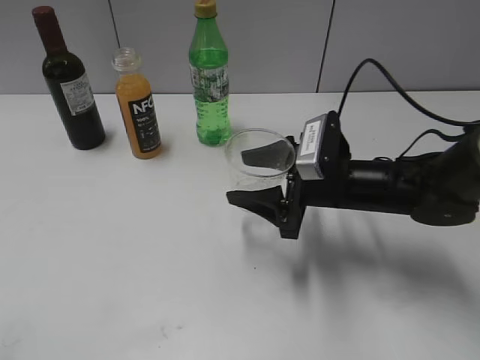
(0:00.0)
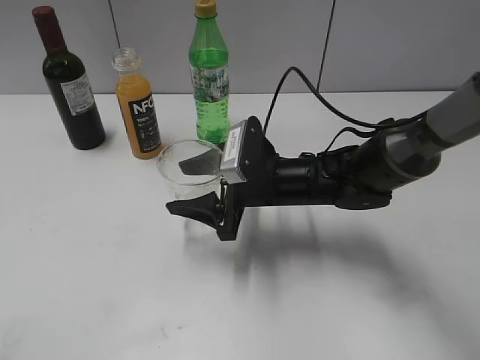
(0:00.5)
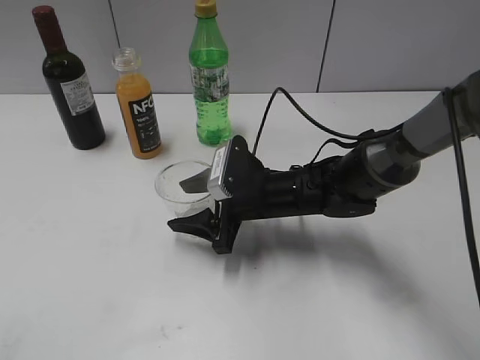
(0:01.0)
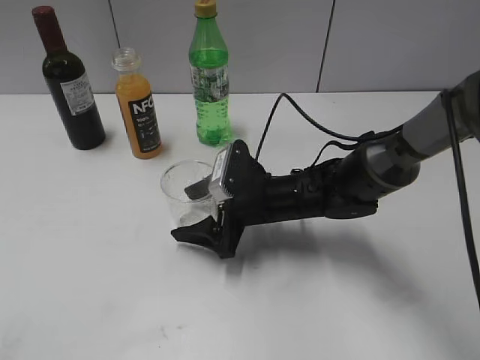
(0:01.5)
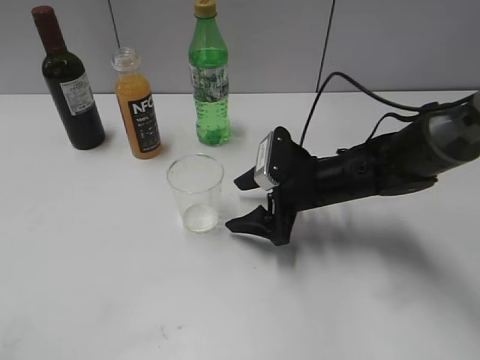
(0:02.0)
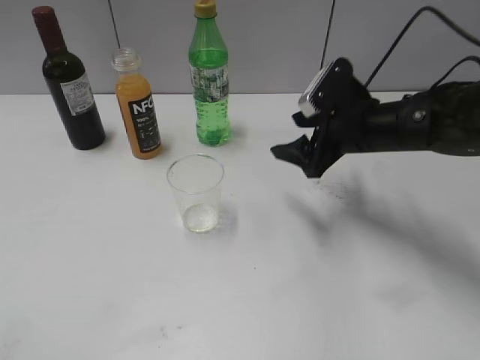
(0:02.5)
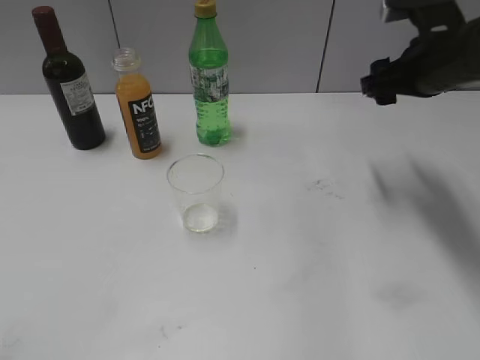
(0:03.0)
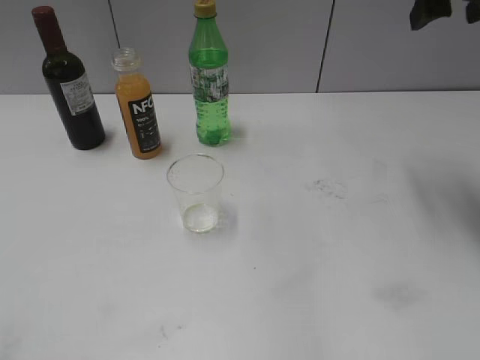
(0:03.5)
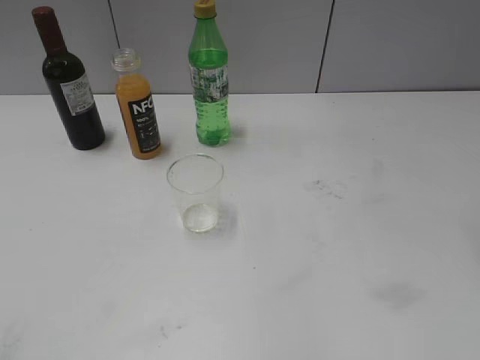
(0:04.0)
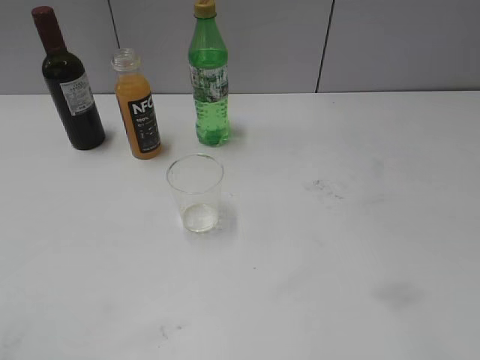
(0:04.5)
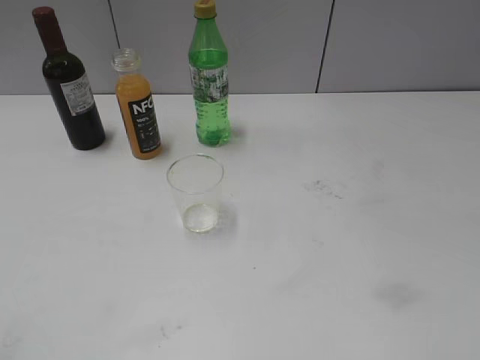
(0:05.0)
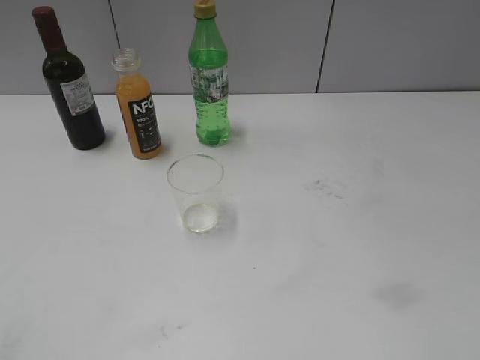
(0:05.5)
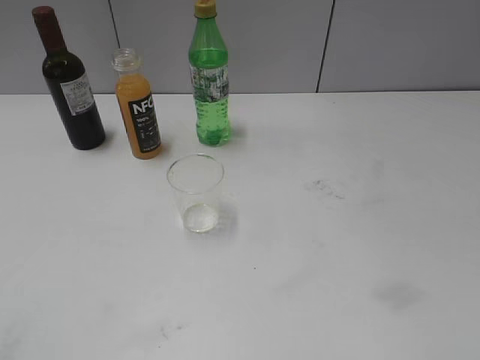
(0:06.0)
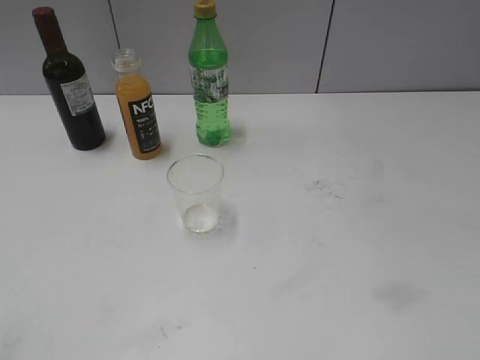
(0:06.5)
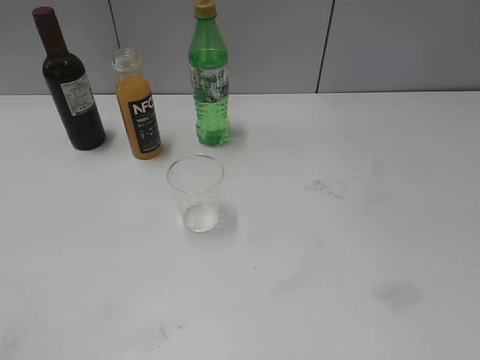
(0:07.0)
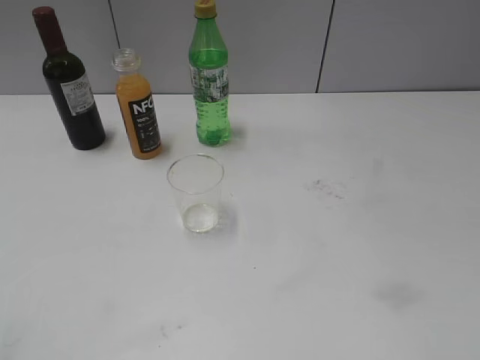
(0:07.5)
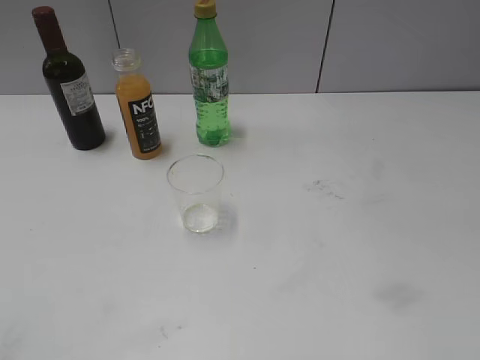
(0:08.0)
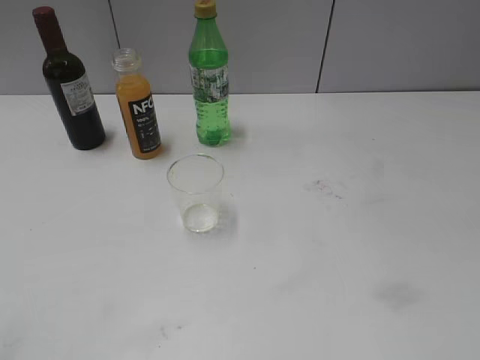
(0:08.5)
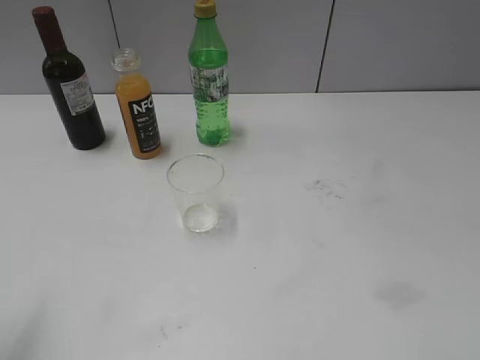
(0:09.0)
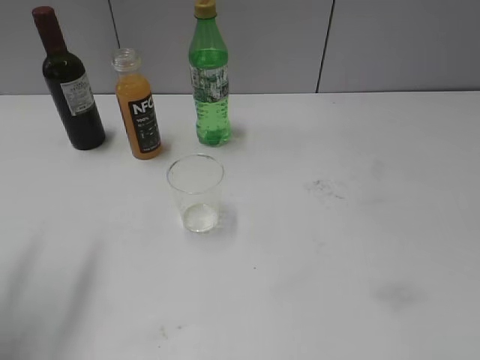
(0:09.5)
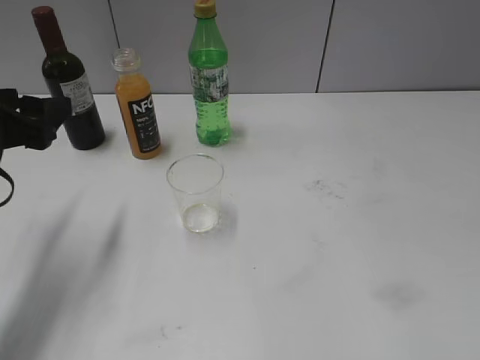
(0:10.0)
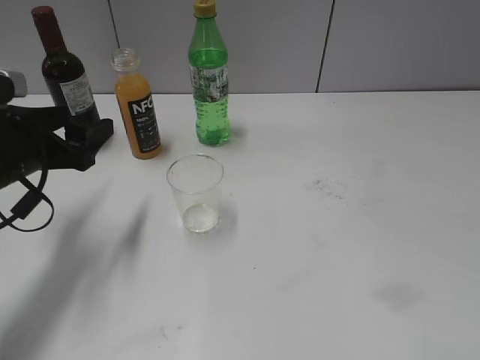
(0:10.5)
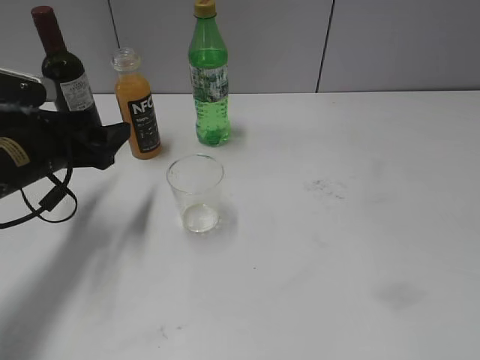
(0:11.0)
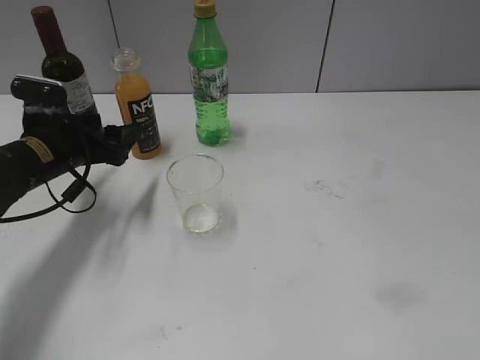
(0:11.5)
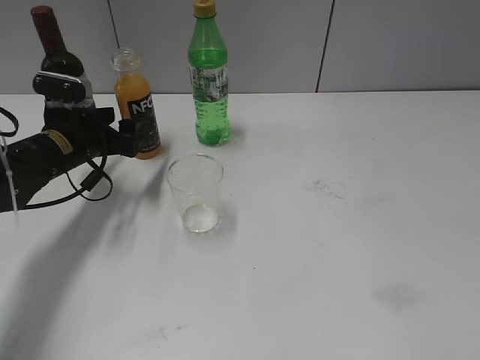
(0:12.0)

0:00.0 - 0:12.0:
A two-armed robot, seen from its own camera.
Step, 0:00.0 - 0:01.5: Place the transparent cup on the table with right gripper.
0:00.0 - 0:02.0: The right gripper moves roughly 10 cm to the left and comes back, and opens.
0:02.0 - 0:04.0: The right gripper shifts some 40 cm upward and to the right, and closes.
0:06.0 - 0:08.0: Both grippers stay about where they are.
0:08.0 - 0:10.0: The left gripper shifts roughly 25 cm forward, and opens its fingers.
0:10.0 - 0:12.0: The left gripper is displaced forward and downward by roughly 15 cm.

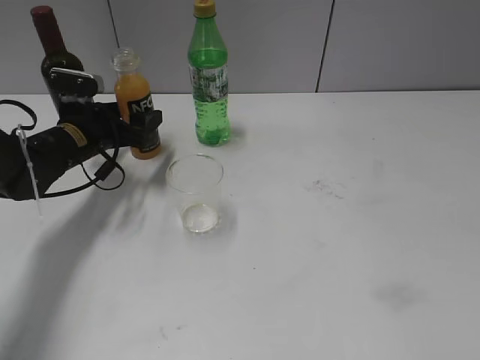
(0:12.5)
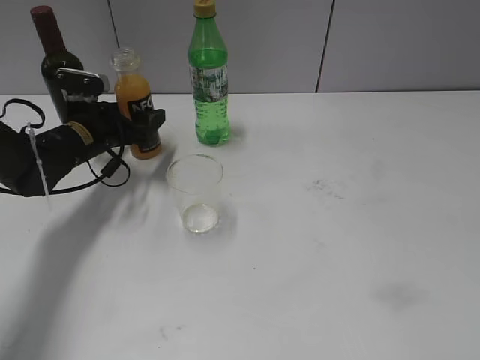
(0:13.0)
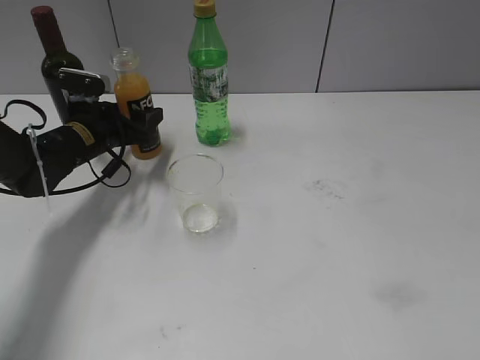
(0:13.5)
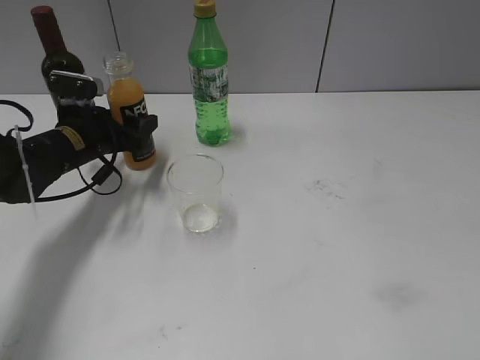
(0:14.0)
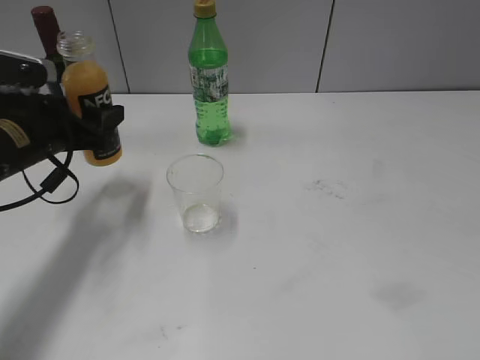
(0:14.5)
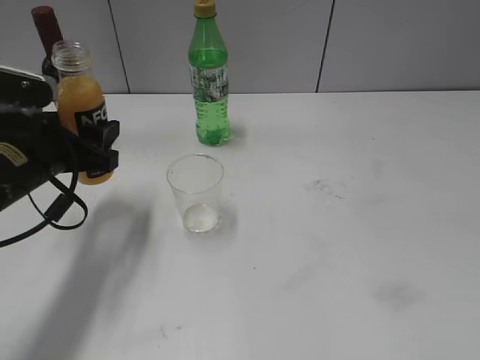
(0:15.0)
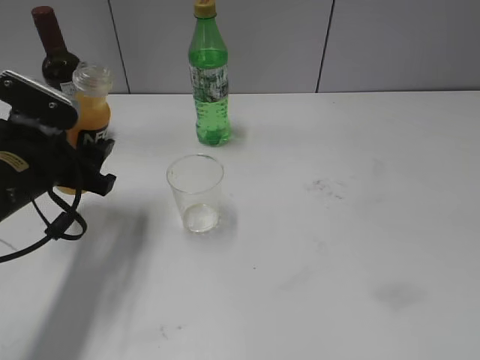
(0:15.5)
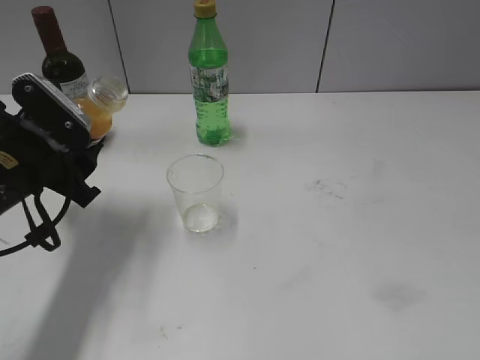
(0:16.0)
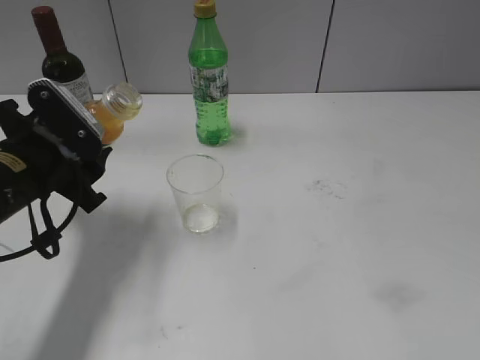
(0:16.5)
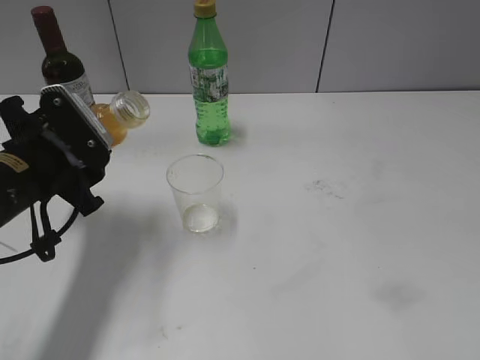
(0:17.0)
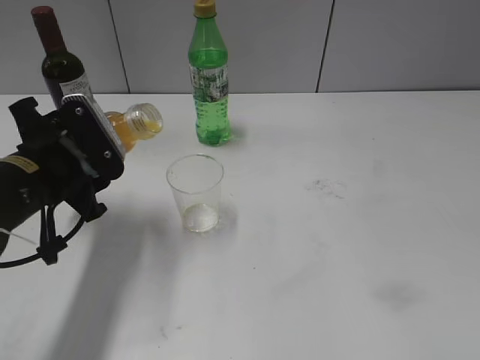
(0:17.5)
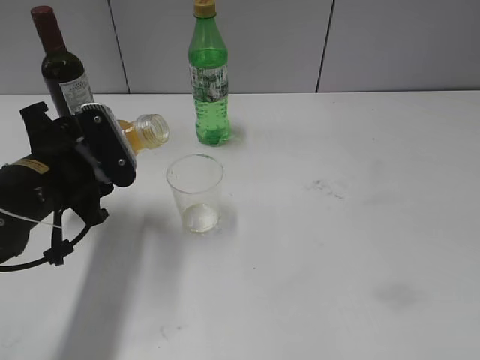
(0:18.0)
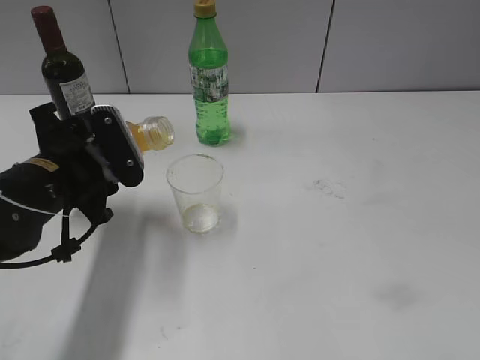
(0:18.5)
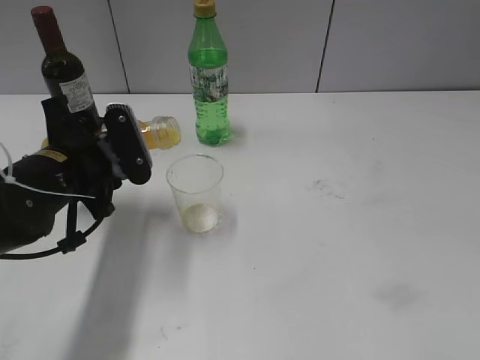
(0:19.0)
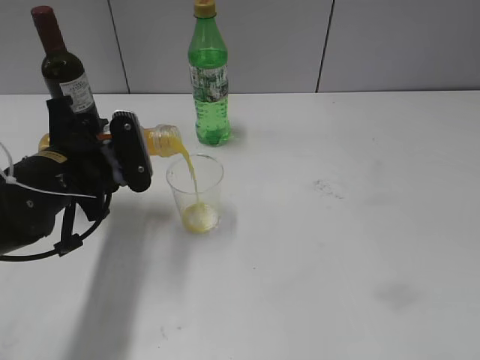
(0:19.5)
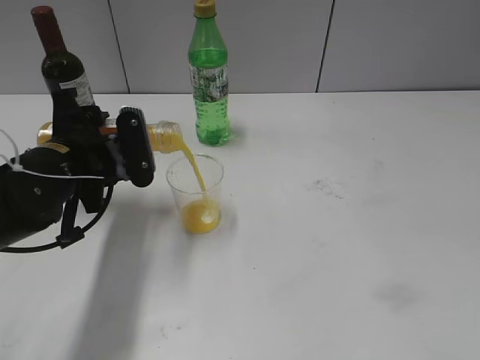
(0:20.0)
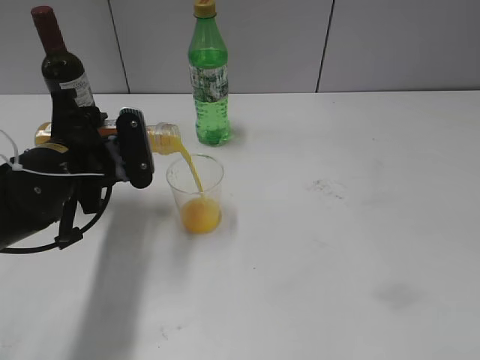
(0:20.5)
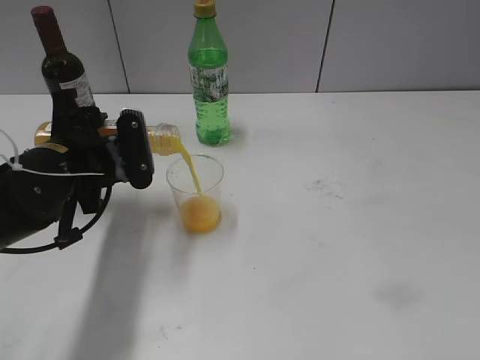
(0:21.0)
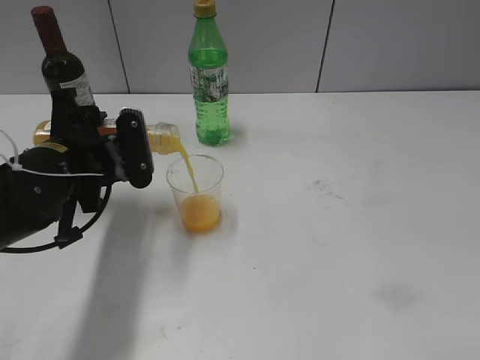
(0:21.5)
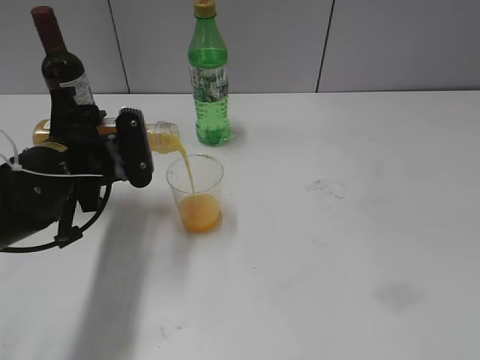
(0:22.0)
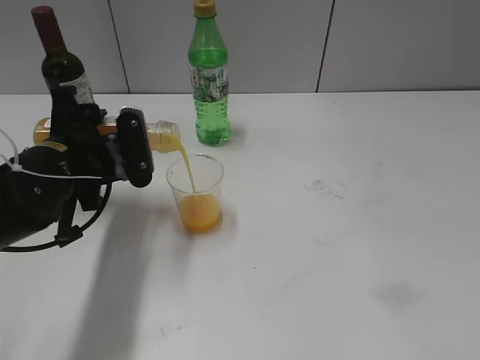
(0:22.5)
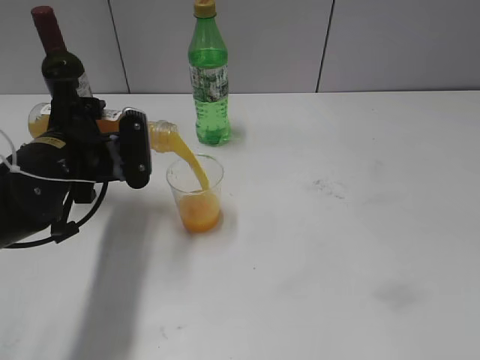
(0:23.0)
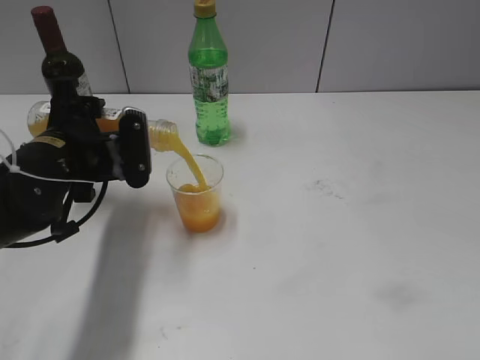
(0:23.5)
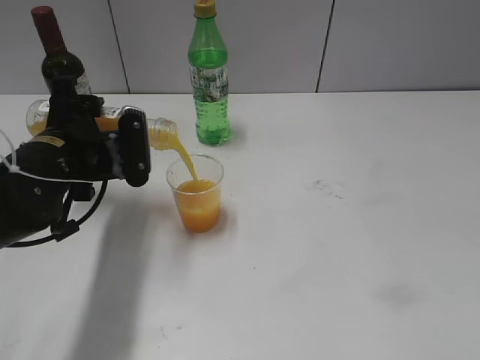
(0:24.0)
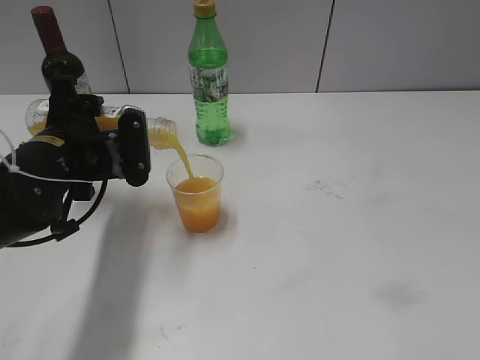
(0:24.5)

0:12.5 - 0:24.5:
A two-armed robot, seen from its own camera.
0:12.5 - 0:14.5: The left gripper travels backward and upward by approximately 10 cm, and closes up.
0:14.5 - 0:16.5: The left gripper moves backward, roughly 5 cm.
0:16.5 - 0:18.5: The grippers make only small movements.
0:18.5 - 0:20.5: The grippers move only a little.
0:20.5 - 0:22.5: Both grippers stay about where they are.
0:22.5 - 0:24.5: The grippers move only a little.

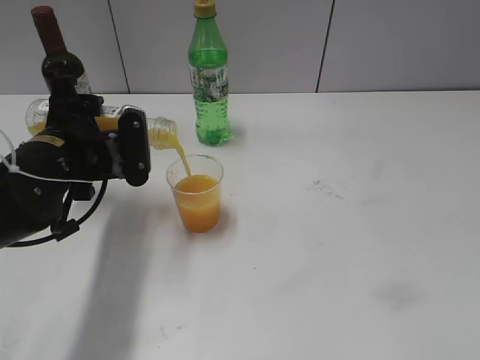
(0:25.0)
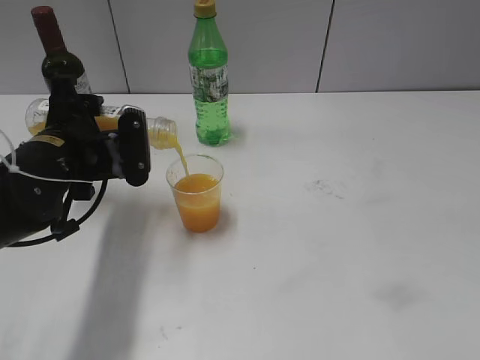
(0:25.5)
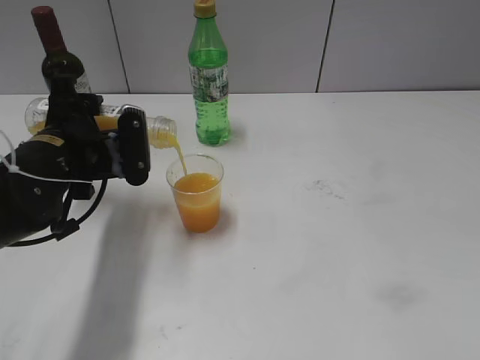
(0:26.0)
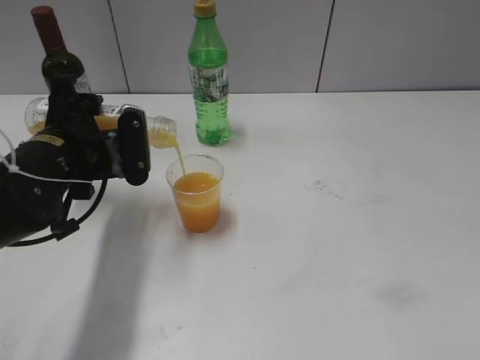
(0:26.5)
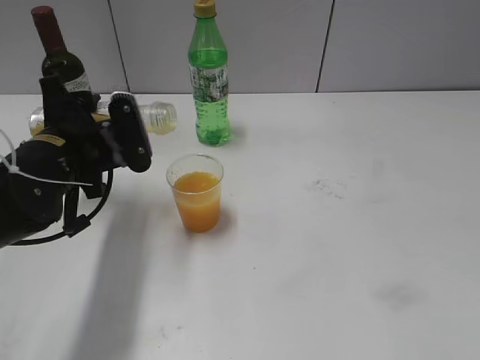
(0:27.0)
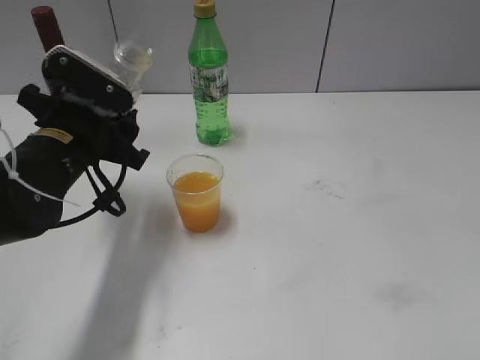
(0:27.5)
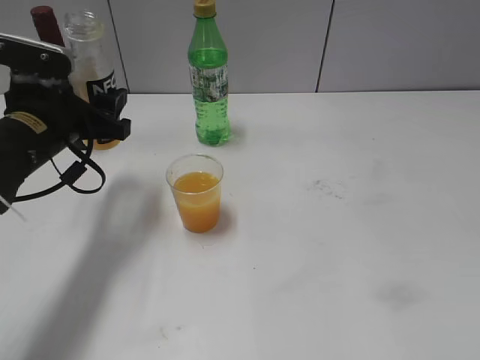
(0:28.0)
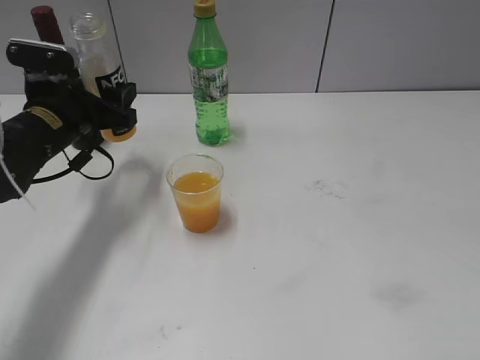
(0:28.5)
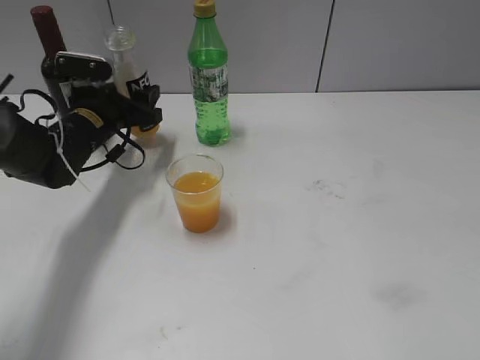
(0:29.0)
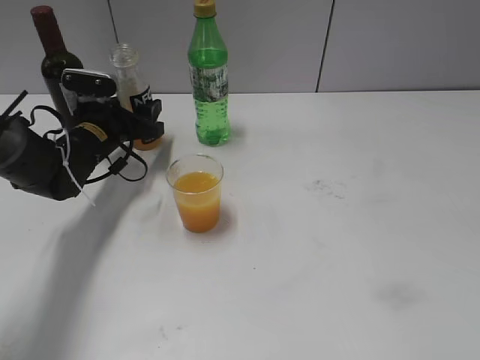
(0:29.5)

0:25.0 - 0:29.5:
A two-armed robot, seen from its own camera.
0:25.0 - 0:27.0: The grippers make only small movements.
0:27.0 - 0:29.5: The left gripper heads forward and downward, covering approximately 15 cm.
